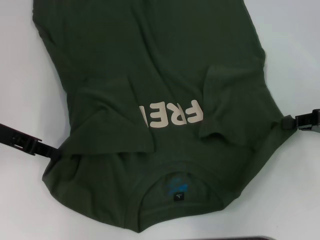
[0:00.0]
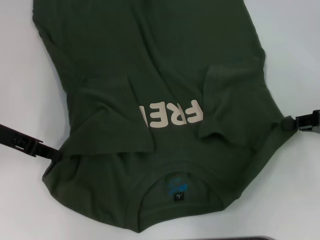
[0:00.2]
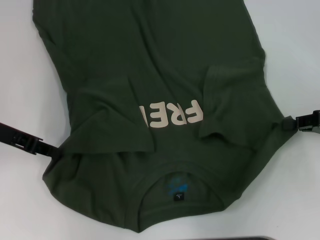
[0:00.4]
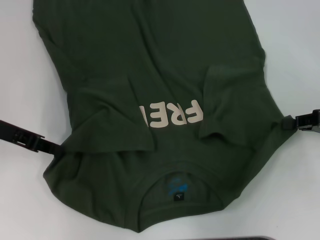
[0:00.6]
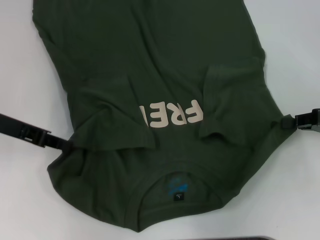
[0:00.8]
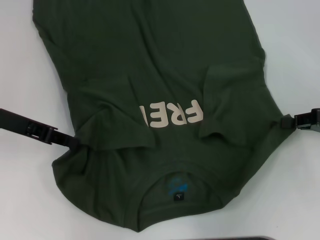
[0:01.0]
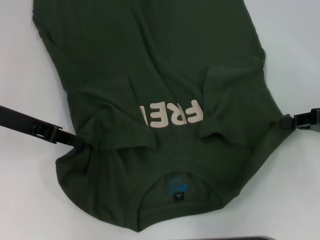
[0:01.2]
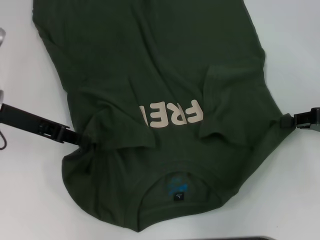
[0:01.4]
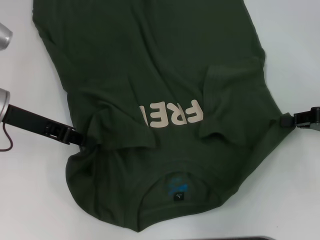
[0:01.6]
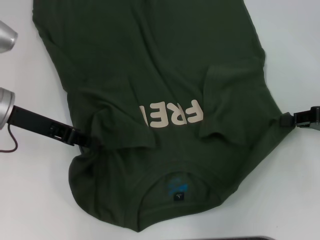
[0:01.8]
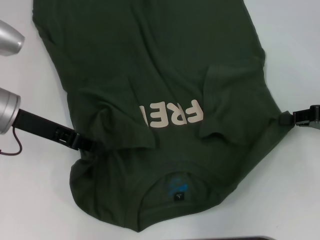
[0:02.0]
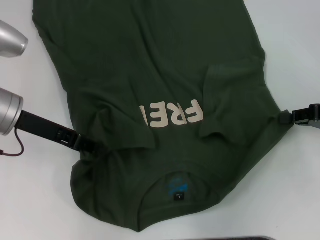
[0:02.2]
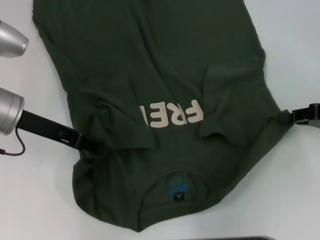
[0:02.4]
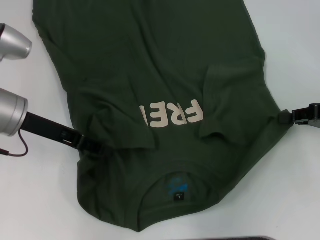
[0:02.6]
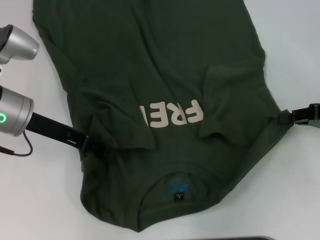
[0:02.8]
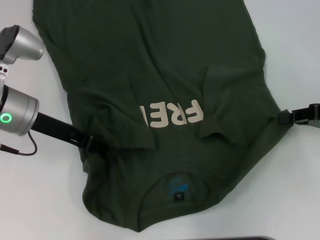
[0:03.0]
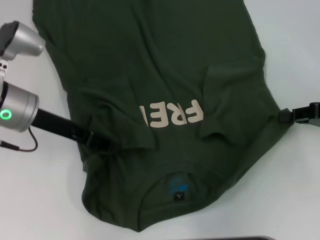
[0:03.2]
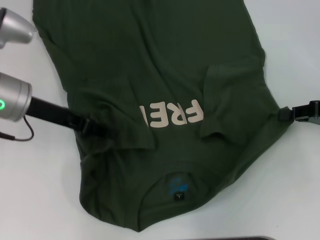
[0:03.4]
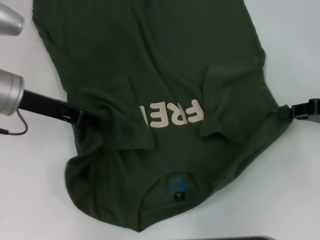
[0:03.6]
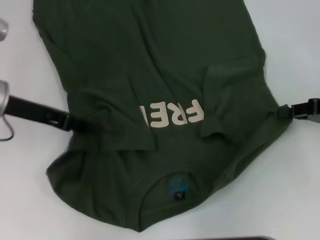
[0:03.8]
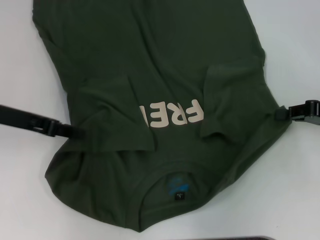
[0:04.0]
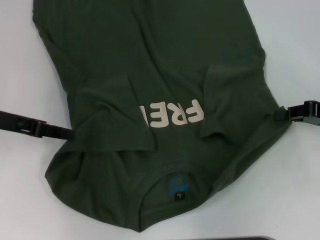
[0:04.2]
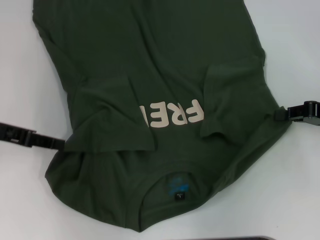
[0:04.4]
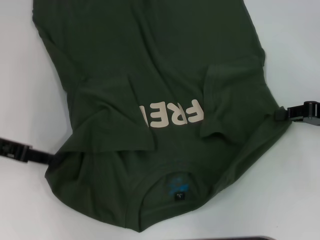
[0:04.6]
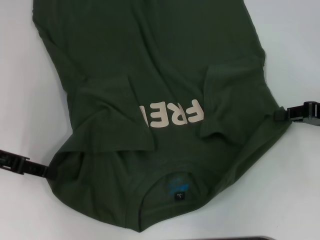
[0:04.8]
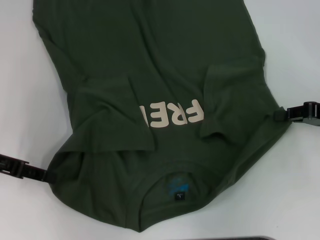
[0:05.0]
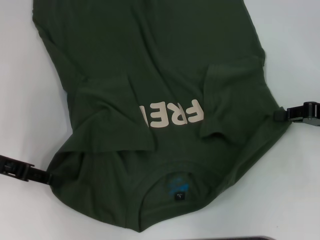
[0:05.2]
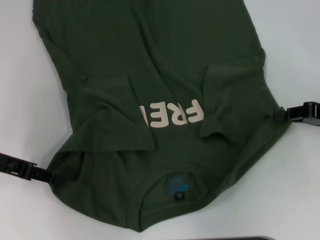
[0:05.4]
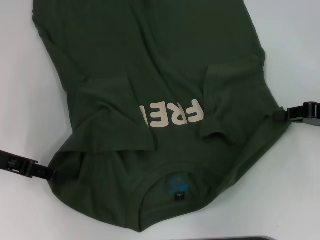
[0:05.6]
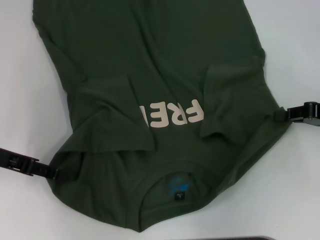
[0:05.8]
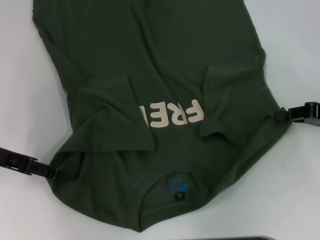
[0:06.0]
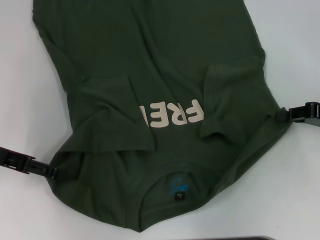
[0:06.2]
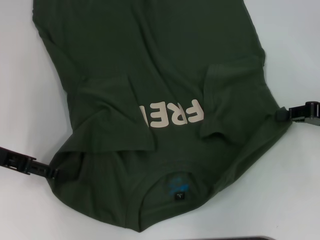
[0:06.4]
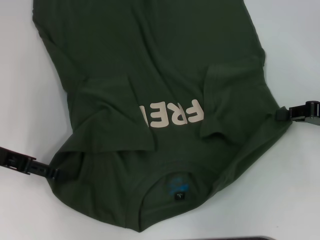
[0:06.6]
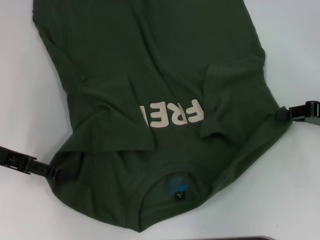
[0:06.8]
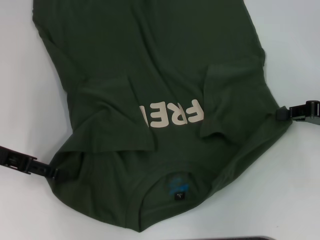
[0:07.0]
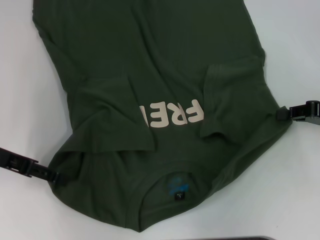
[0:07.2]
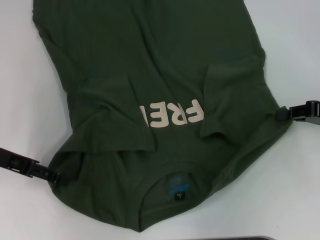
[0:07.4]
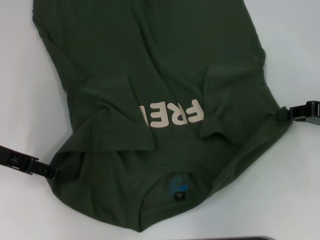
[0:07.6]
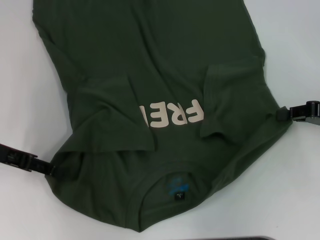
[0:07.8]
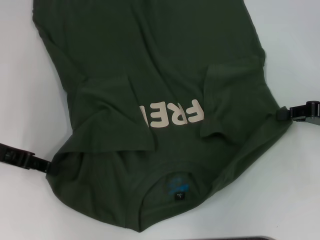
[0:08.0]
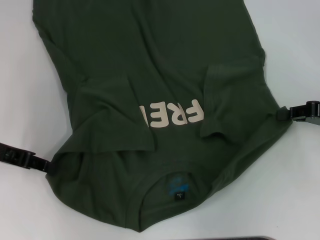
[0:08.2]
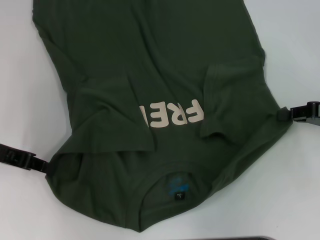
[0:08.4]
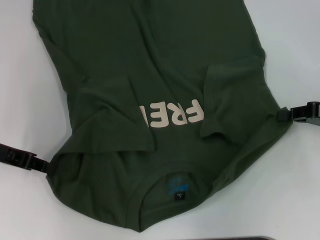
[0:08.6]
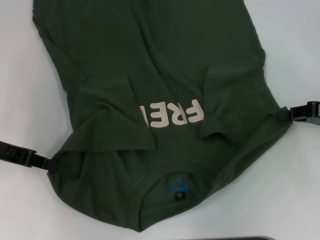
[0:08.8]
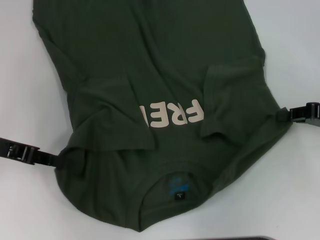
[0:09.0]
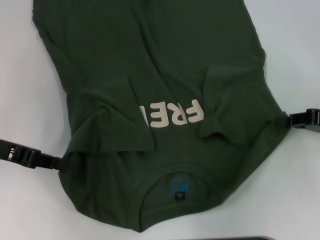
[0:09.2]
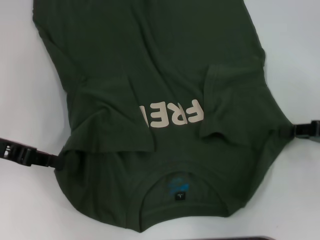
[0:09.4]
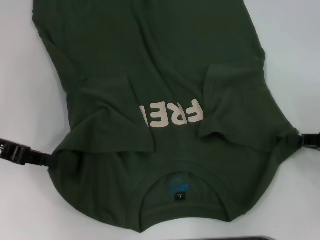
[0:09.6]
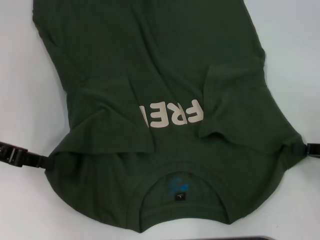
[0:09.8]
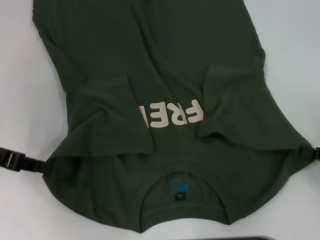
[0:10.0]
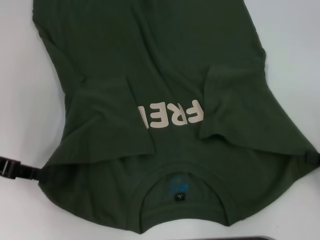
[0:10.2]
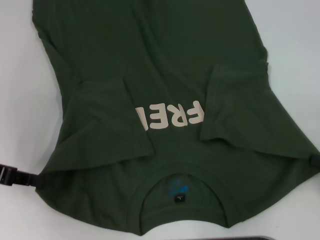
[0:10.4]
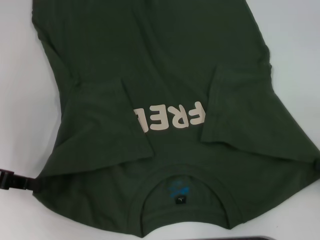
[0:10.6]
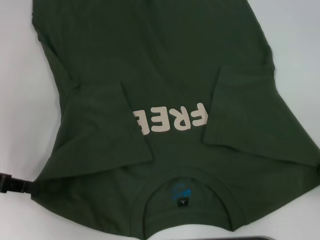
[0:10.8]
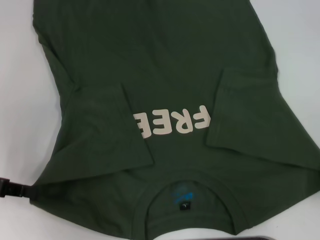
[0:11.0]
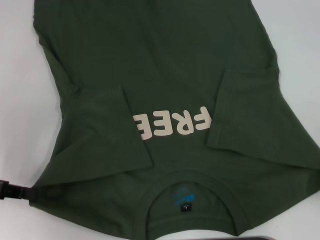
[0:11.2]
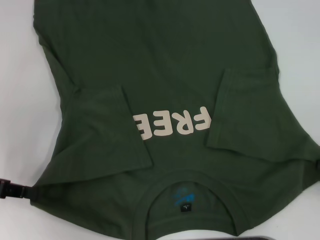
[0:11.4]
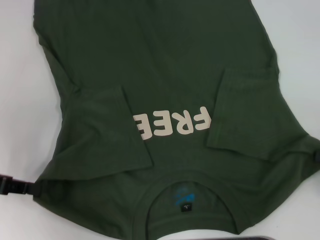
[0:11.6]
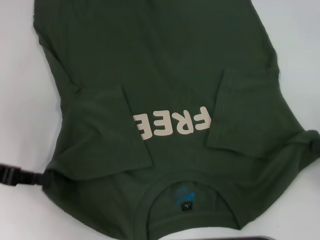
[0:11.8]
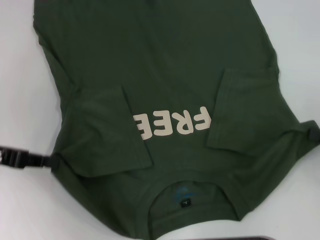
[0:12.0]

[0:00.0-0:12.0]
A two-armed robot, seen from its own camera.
Step, 0:00.0 to 0:11.2: Grab the bottom left corner with your left hand.
0:00.0 to 0:01.6: There are only small adjustments of the grippers.
0:01.6 to 0:03.0: The left gripper opens up.
0:03.0 to 0:04.4: The left gripper travels to the left by about 10 cm.
0:04.4 to 0:06.0: The grippers stay close to where they were, moving slightly.
0:06.0 to 0:07.6: Both grippers stay put.
0:07.6 to 0:09.0: The left gripper closes.
0:09.0 to 0:10.4: The right gripper travels backward by about 10 cm.
0:10.4 to 0:12.0: There are only small adjustments of the grippers.

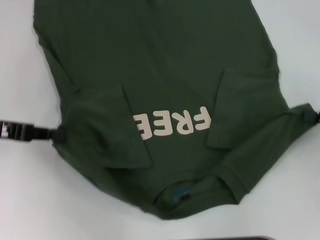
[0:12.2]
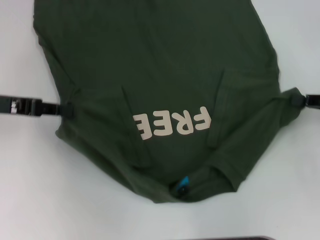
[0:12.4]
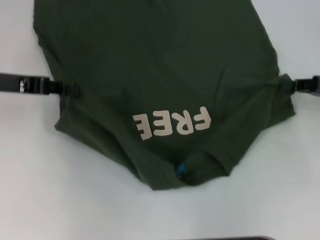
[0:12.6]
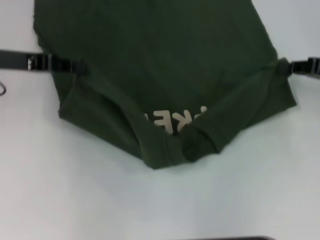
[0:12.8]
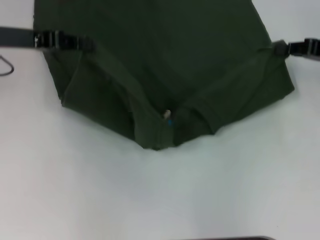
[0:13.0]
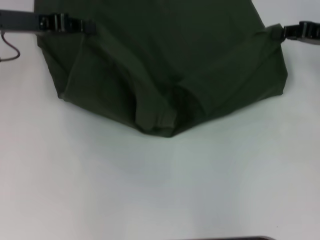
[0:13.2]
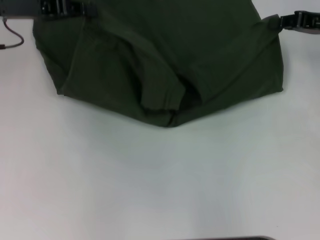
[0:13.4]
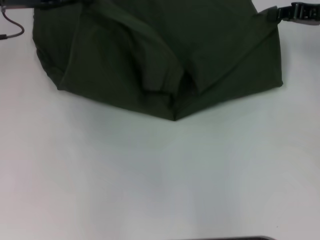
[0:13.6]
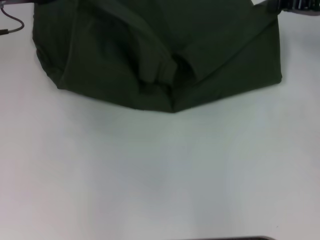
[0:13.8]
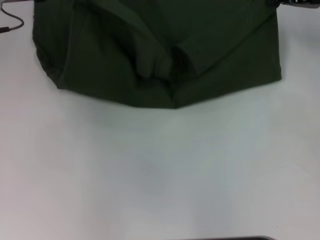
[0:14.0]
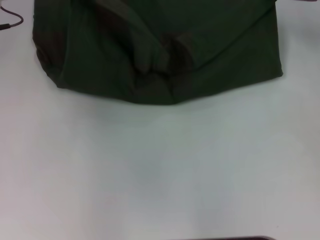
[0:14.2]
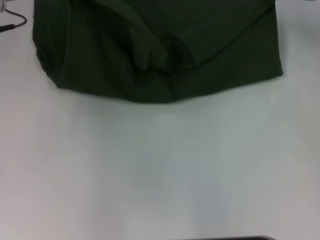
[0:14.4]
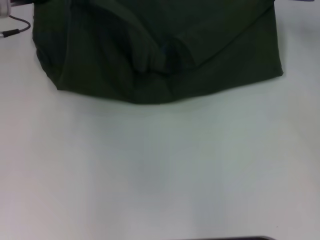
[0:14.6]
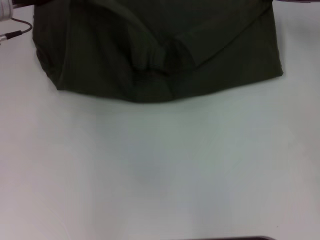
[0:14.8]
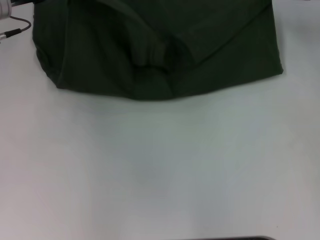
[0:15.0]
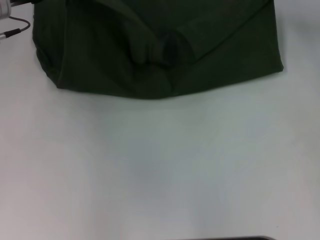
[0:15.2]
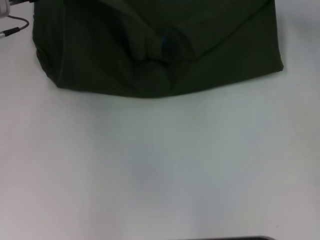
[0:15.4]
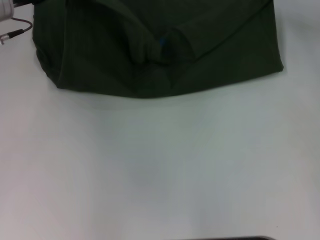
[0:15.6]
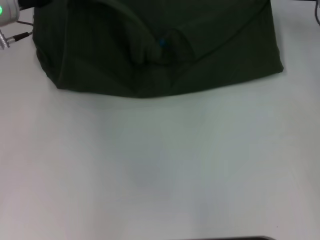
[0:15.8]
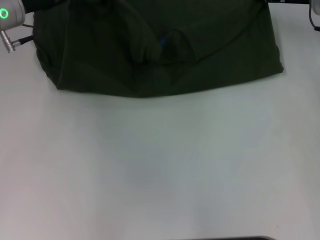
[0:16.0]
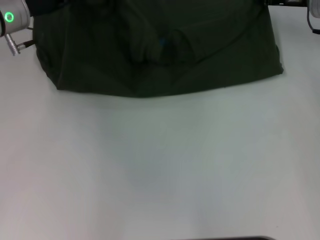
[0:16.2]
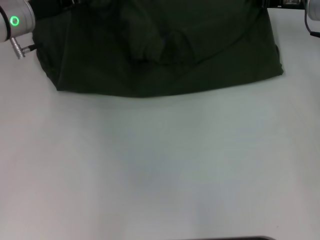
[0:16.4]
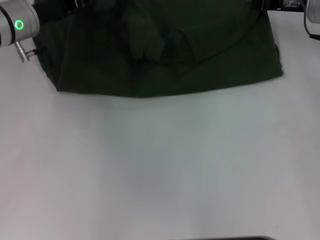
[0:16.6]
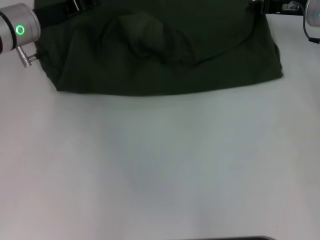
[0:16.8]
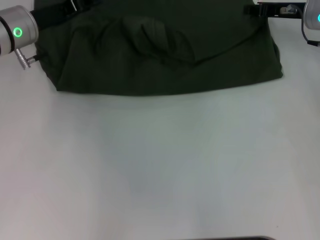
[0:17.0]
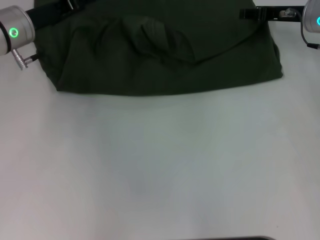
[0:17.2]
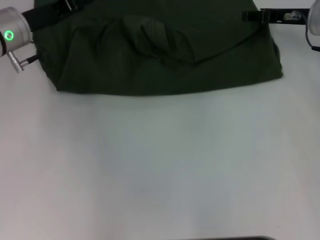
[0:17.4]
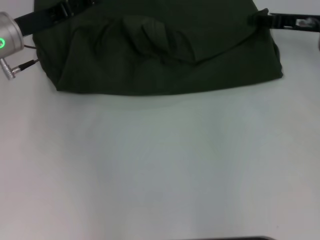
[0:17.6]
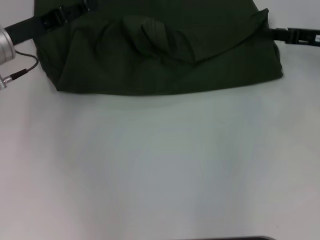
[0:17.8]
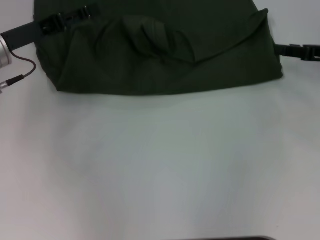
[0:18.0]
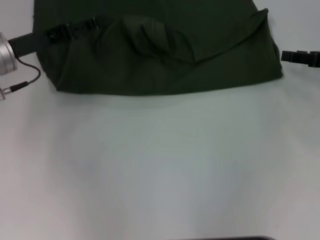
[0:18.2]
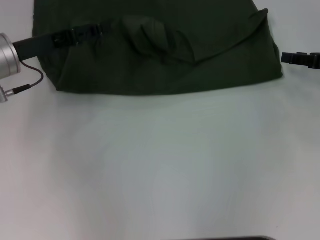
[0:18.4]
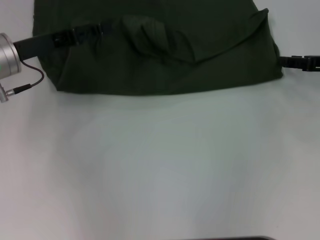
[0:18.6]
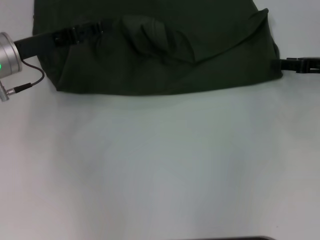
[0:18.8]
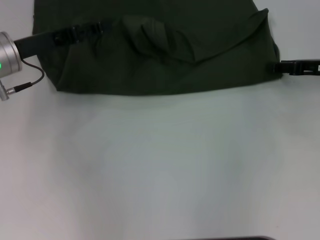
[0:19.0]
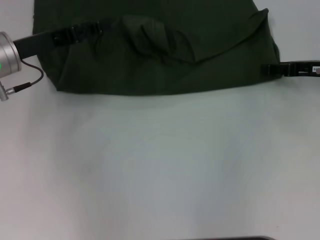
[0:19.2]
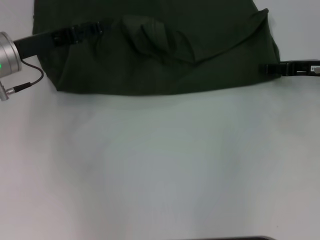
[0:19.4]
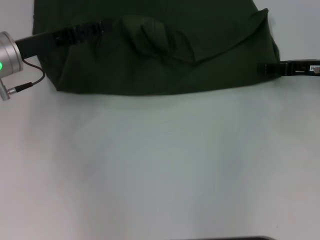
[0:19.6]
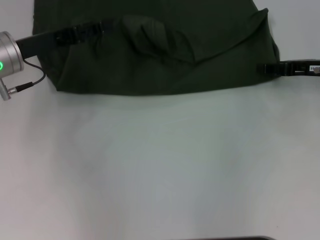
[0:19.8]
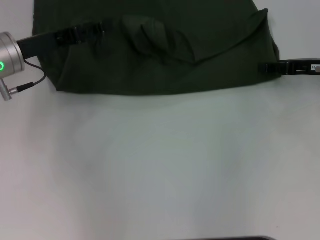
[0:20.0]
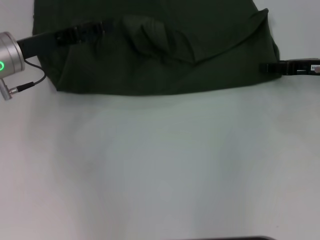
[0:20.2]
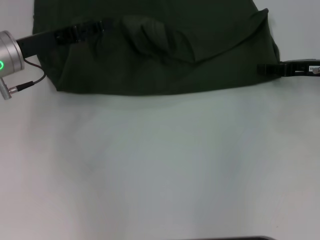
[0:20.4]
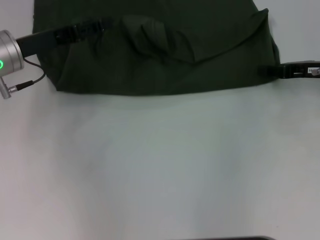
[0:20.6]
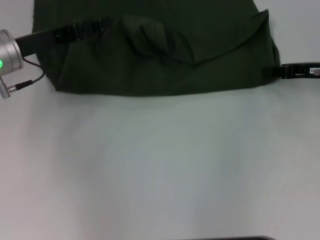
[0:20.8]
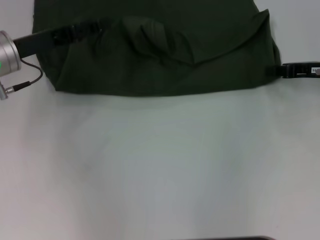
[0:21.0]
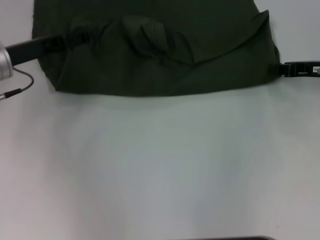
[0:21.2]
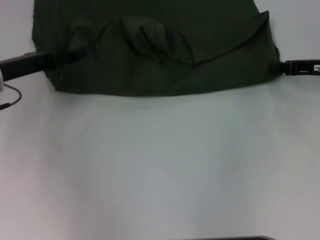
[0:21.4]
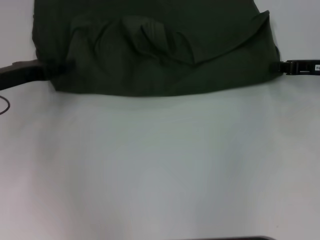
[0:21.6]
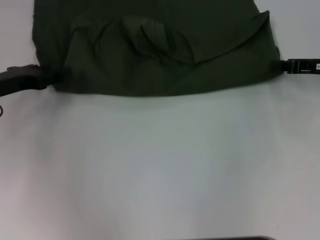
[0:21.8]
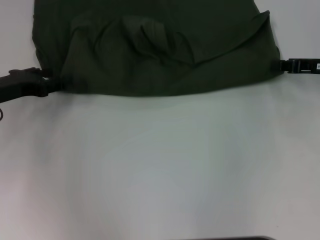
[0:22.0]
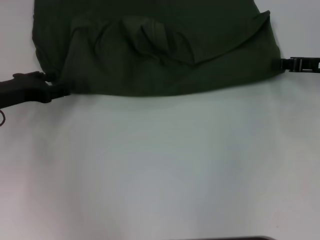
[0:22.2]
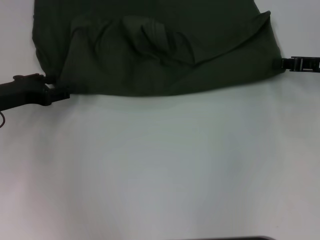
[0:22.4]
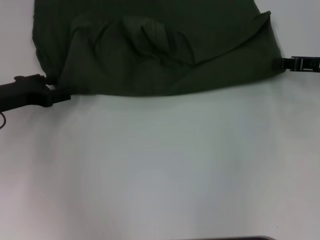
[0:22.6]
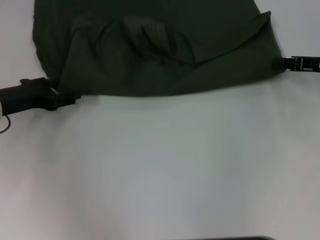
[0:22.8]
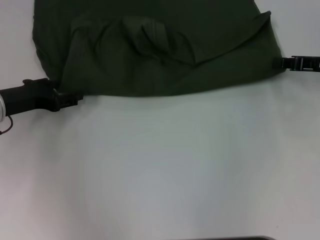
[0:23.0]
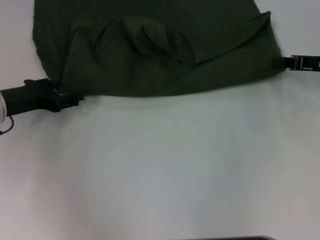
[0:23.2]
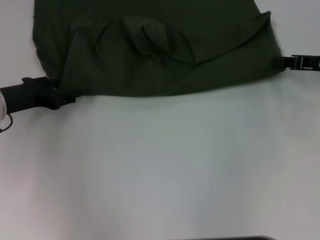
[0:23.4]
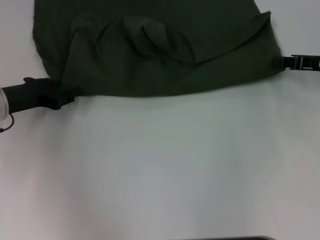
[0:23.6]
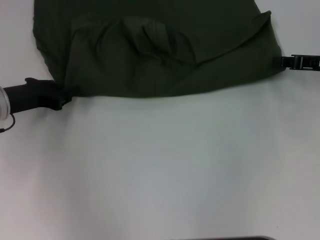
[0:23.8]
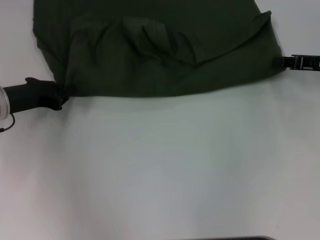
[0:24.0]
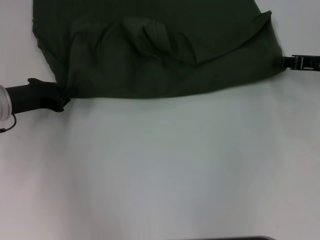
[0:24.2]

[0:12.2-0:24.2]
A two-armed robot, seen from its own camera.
Step, 0:12.2 to 0:17.2: Fold the clothes with your left hand.
Step, 0:12.2 to 0:17.2: Fold the clothes with your right hand.
0:12.2 to 0:13.8: The right gripper shifts about 20 cm forward and upward. The left gripper travels forward, to the right and upward by approximately 15 cm.
0:13.8 to 0:15.2: The grippers make only small movements.
0:15.2 to 0:16.6: The grippers make only small movements.
0:16.6 to 0:18.2: The left gripper shifts roughly 5 cm backward, and opens, while the right gripper moves backward and to the right, approximately 15 cm, and opens up.
0:18.2 to 0:19.8: The grippers make only small movements.
0:19.8 to 0:21.2: The right gripper closes up.
0:21.2 to 0:22.6: The left gripper moves some 5 cm.
0:22.6 to 0:24.2: The left gripper closes up.
